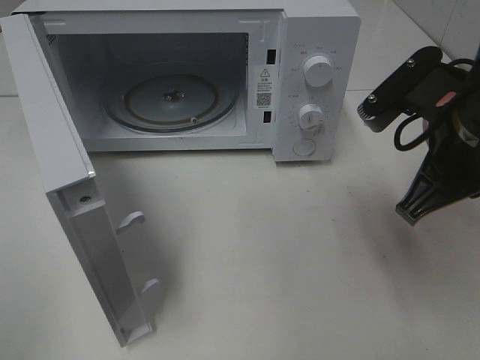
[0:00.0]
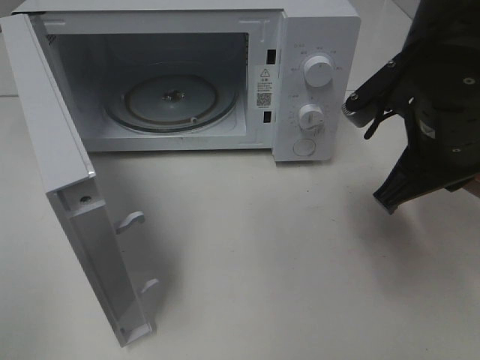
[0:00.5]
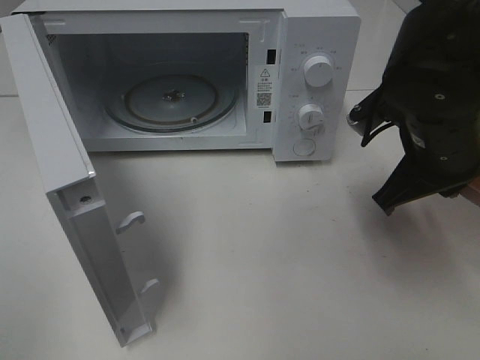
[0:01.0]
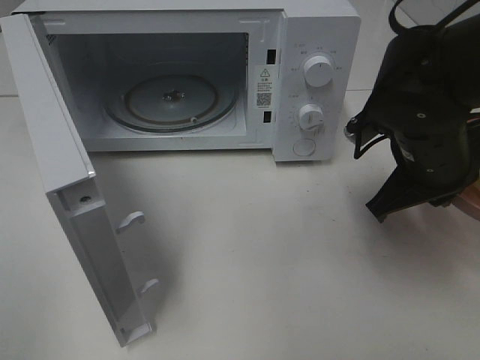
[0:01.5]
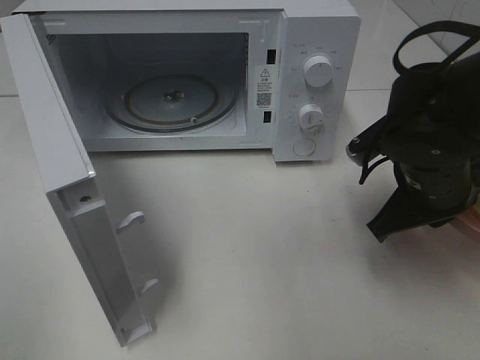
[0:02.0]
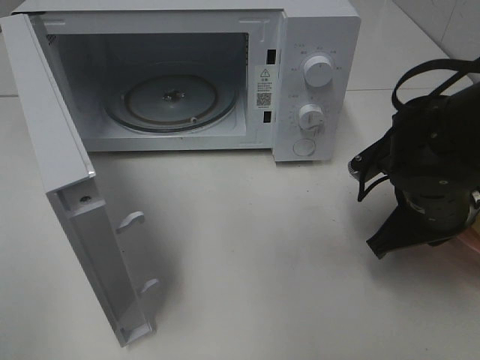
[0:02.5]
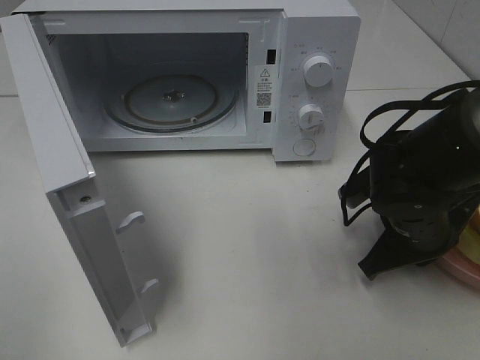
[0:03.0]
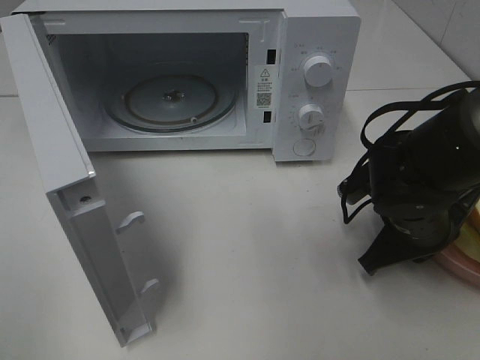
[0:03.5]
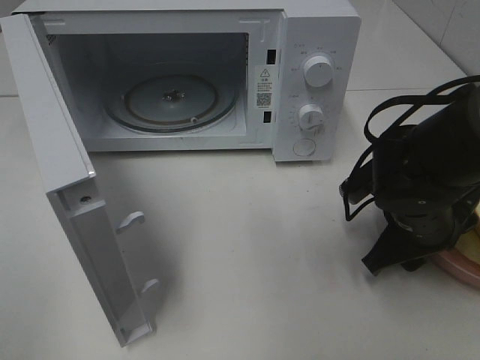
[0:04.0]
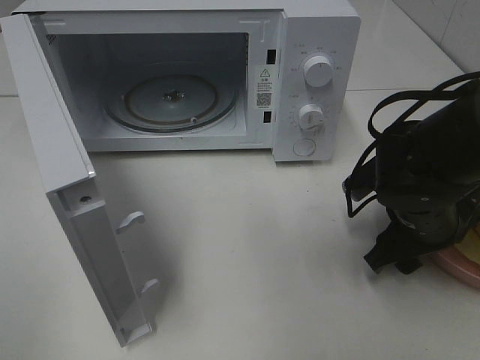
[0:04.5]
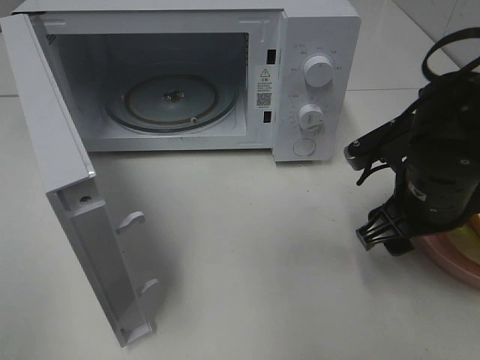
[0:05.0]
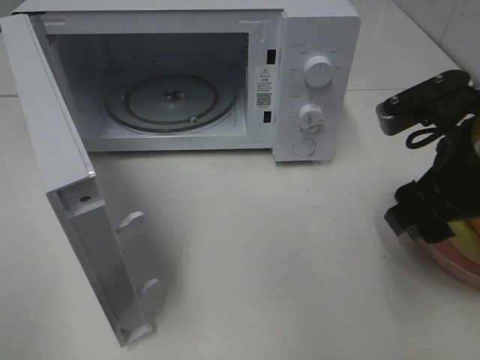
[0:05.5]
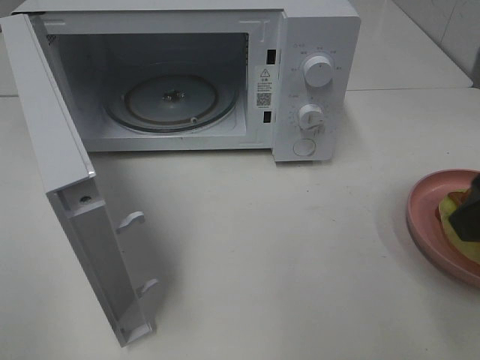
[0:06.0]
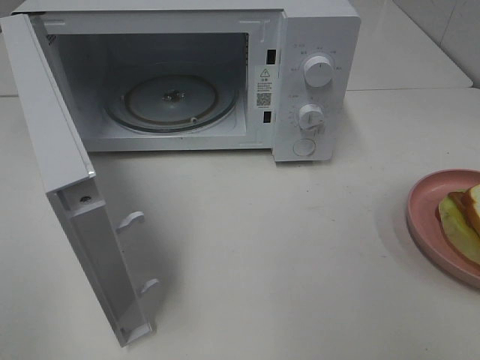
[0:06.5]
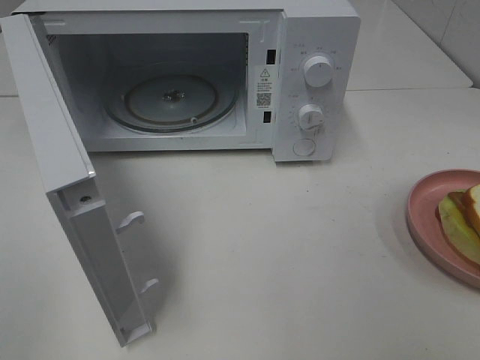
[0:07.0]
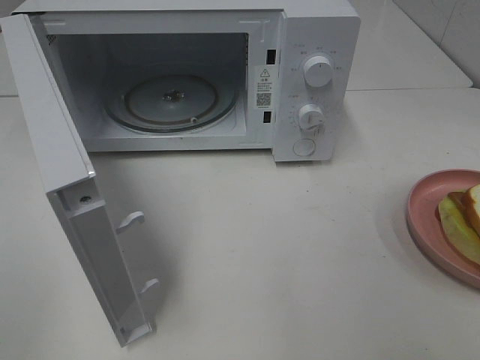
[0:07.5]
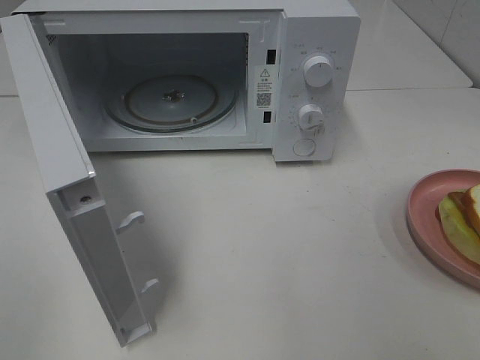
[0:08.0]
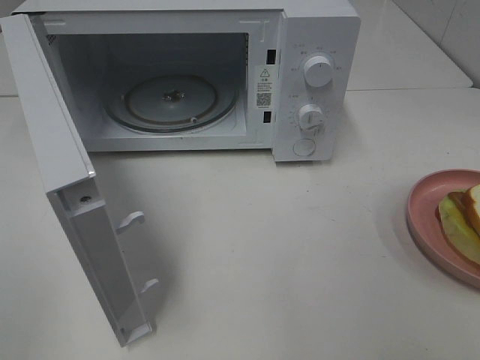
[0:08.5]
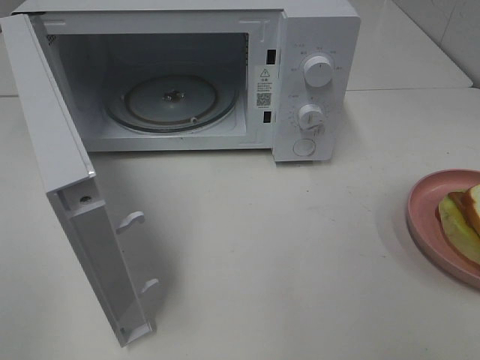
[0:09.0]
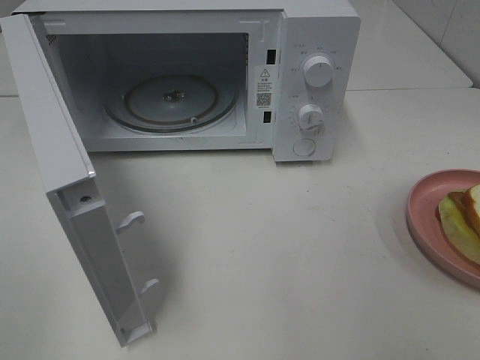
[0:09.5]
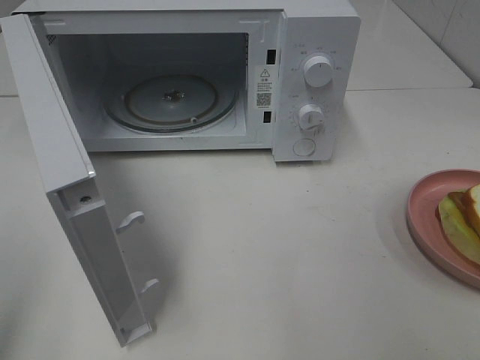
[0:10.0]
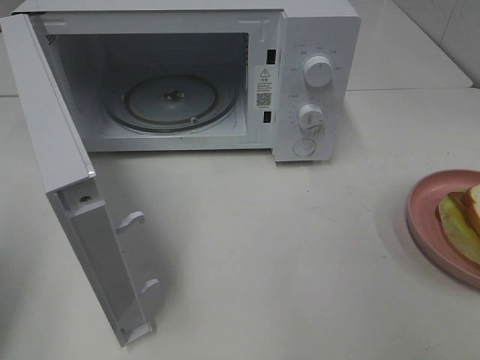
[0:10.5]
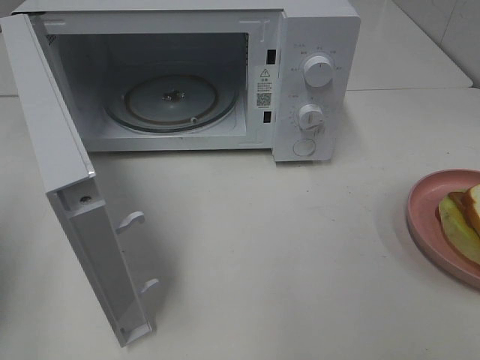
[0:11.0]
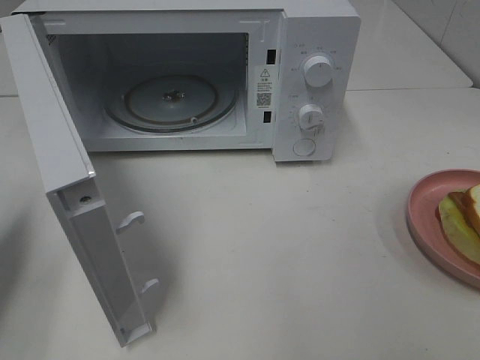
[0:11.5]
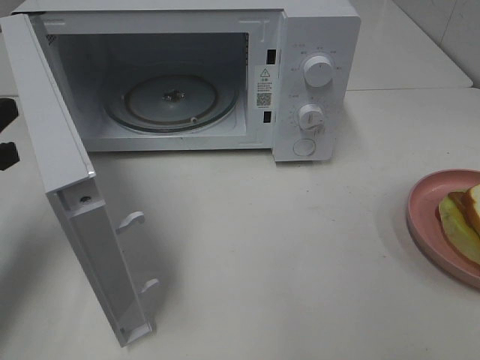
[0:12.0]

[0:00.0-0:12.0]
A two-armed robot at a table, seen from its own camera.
Task of the whole recording: Heat Sandwich.
Step, 0:00.0 to 0:05.0: Right hand: place the plate on the table.
0:00.0 to 0:02.0: The right gripper shifts roughly 10 cm downward.
0:02.0 to 0:04.0: The right gripper goes about 5 cm downward, and opens its fingers.
0:04.0 to 0:06.0: The right gripper is displaced upward and backward by roughly 20 cm.
0:06.0 to 0:08.0: The right gripper travels backward and to the right by roughly 15 cm.
0:10.0 to 0:12.0: The left gripper heads forward and downward, covering some 25 cm, and closes up.

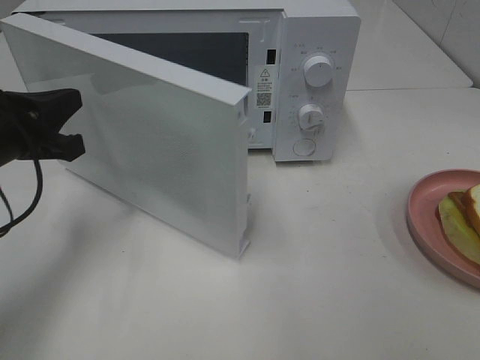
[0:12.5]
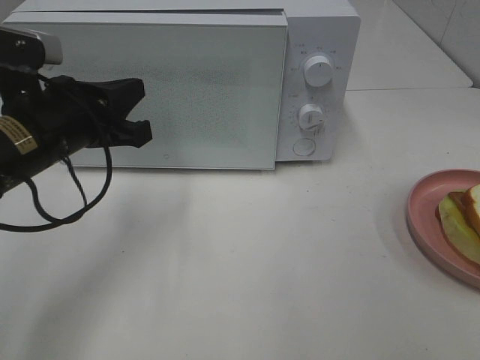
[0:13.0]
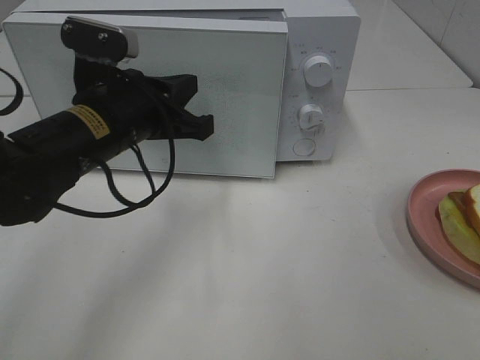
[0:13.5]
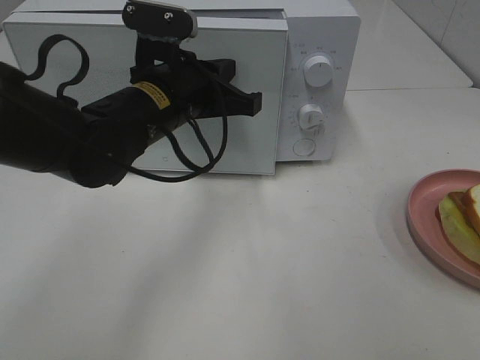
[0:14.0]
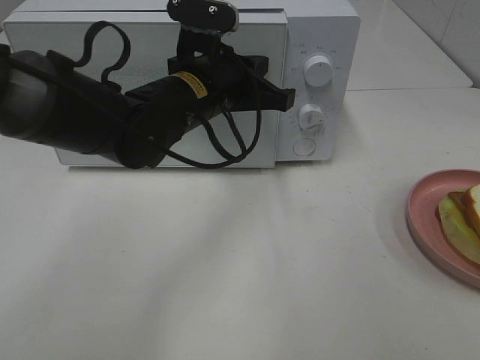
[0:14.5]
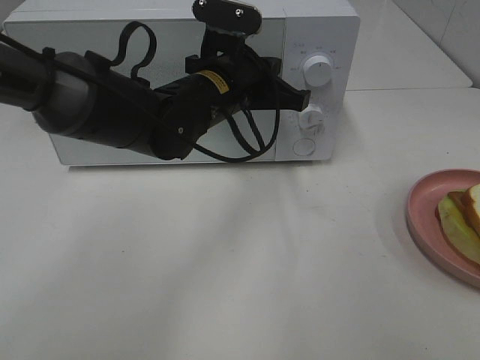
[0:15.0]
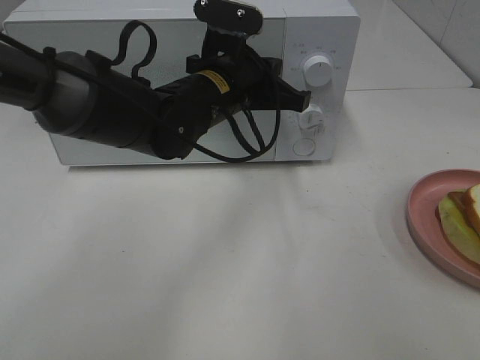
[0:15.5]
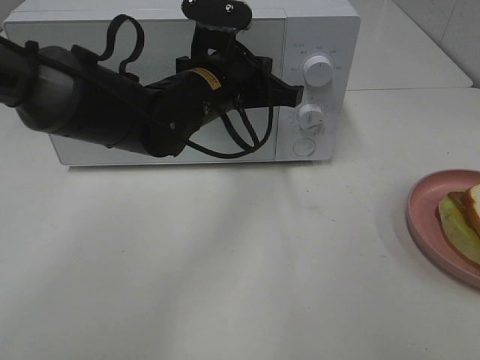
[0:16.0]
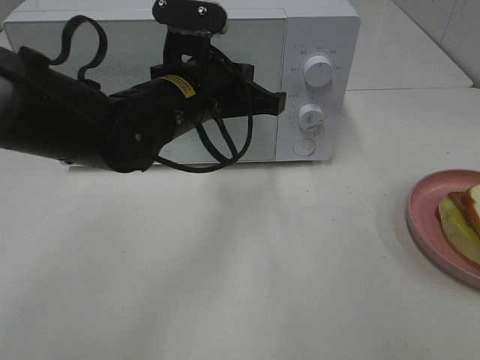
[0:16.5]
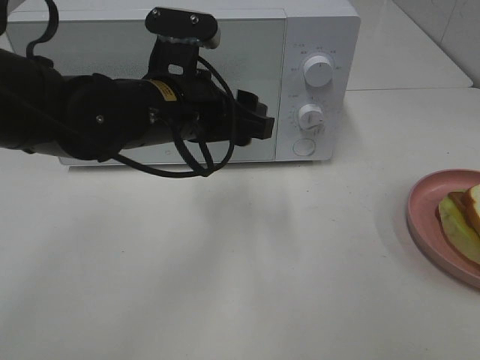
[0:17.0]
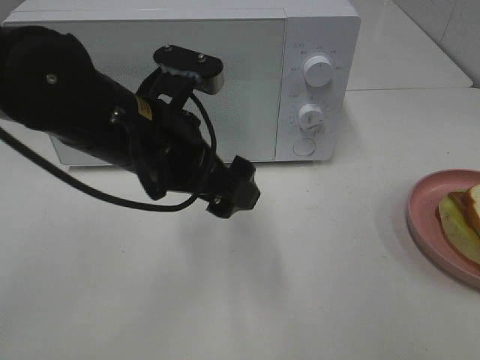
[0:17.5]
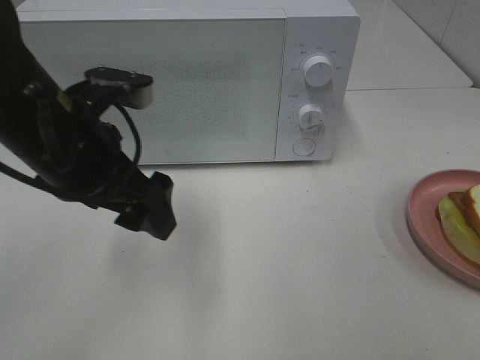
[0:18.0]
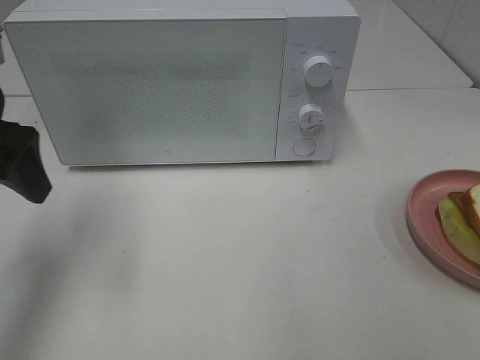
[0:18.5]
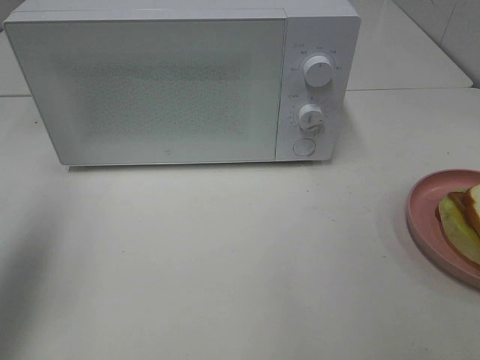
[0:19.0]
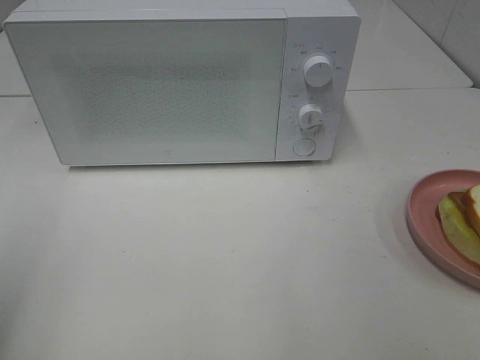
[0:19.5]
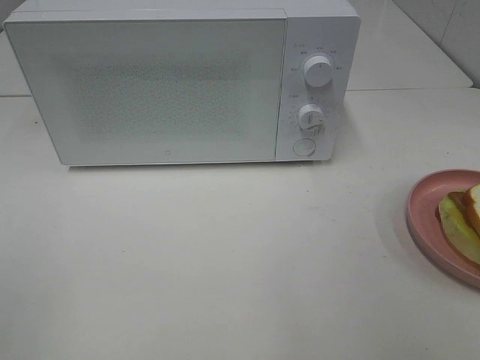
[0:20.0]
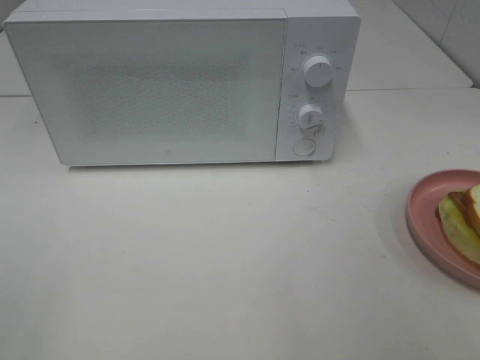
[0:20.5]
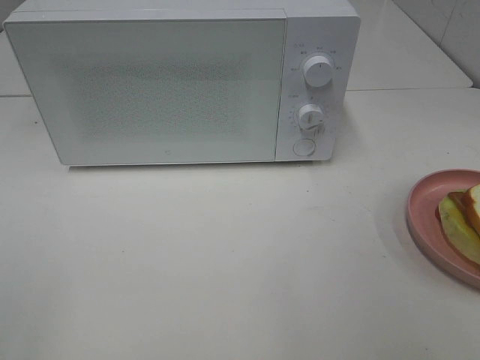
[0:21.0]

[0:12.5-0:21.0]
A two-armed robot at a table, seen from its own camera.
Task of the whole recording: Heat Sandwich.
Step, 0:12.5 to 0:16.5: Left hand: close the microwave door.
0:12.5 to 0:14.5: The left gripper is displaced to the right by approximately 20 cm.
0:14.5 to 0:16.5: The grippers move only a little.
0:16.5 to 0:19.0: The left gripper goes about 30 cm to the left, upward and backward, and opens up.
0:19.0 to 0:21.0: The left gripper goes about 20 cm backward.
